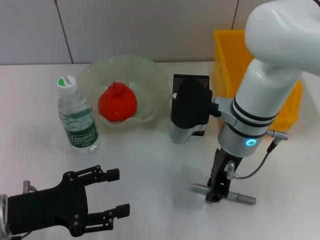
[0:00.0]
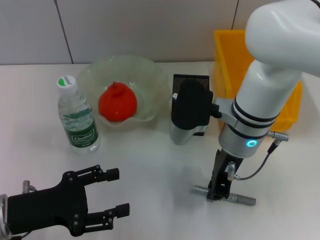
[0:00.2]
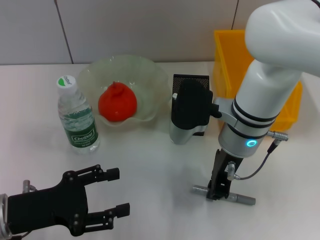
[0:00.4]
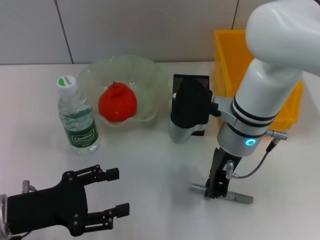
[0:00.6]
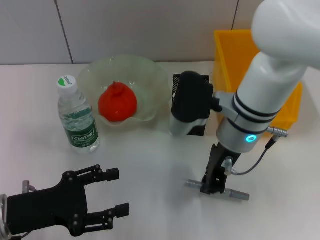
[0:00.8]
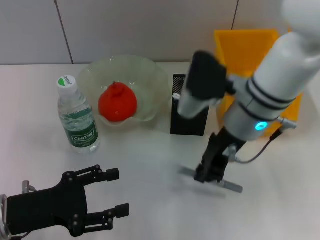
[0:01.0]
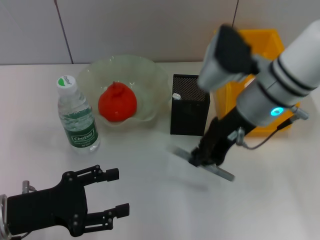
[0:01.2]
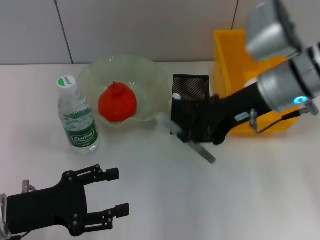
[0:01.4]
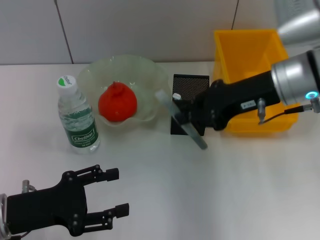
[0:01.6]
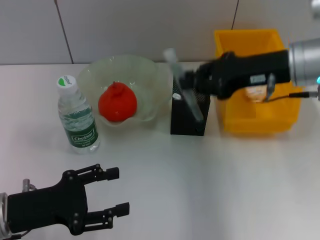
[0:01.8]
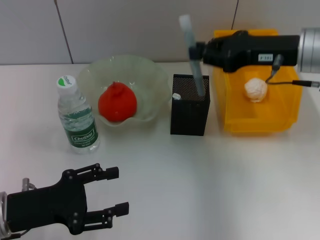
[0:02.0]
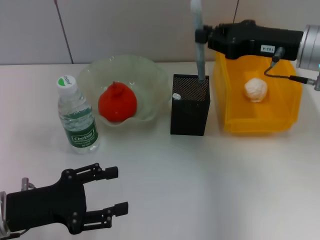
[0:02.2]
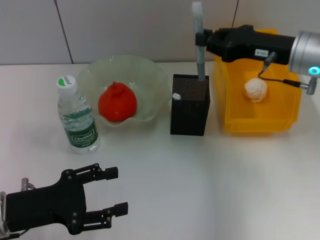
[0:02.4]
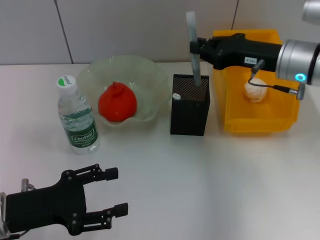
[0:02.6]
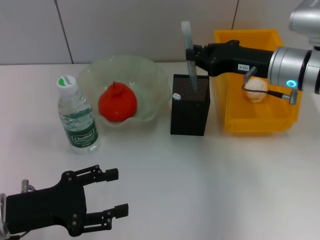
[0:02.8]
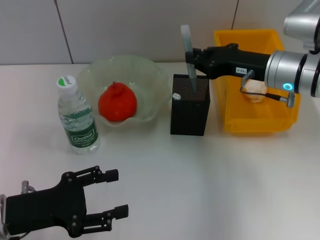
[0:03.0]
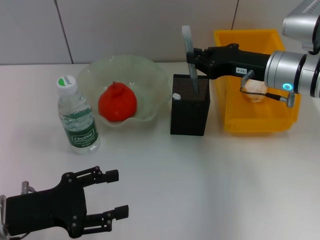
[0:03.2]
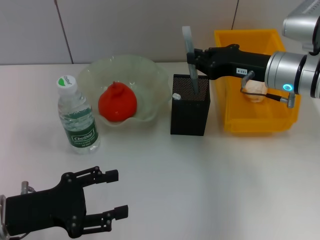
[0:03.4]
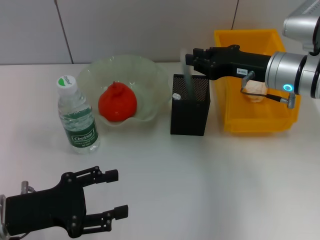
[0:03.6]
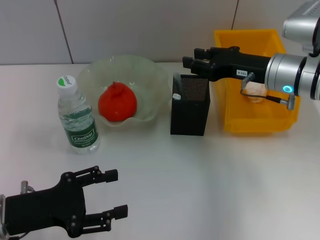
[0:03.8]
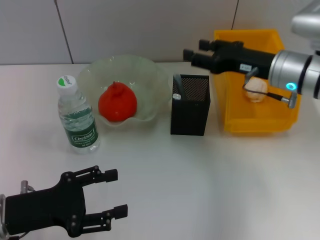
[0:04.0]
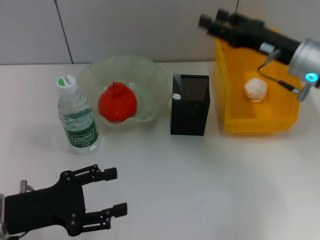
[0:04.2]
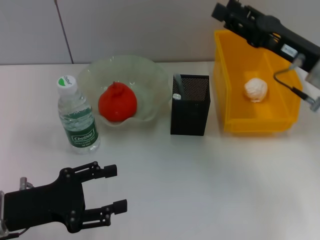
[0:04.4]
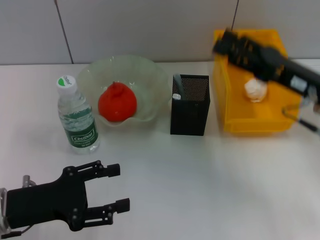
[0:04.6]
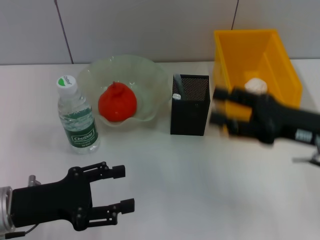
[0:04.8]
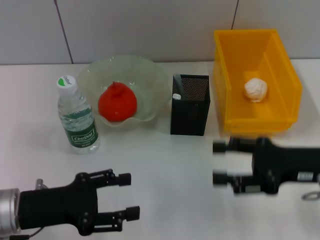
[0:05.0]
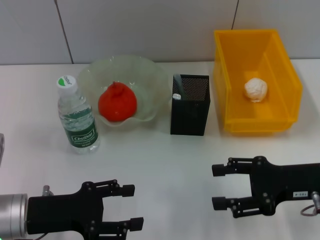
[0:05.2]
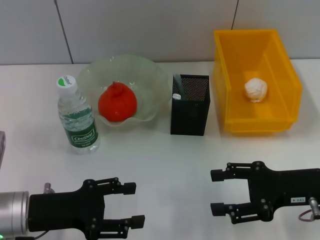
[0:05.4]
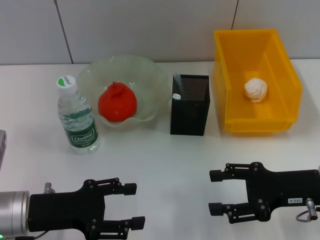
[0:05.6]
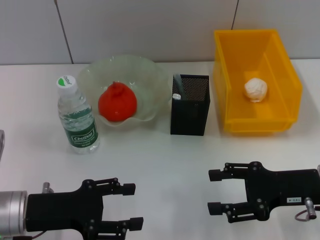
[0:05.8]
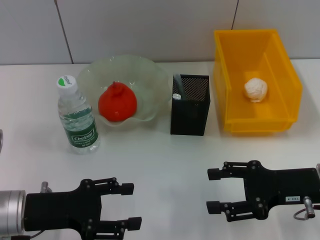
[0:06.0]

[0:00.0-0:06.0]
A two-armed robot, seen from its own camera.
Step, 0:00.6 to 0:03.8: Place the gray glue into the pen holder with the right hand.
0:00.0 to 0:01.6: The right gripper is displaced to the right and upward by roughly 10 cm, and closes.
0:01.6 to 0:03.0: The right gripper travels downward by some 5 cm.
0:03.0 to 0:04.4: The right gripper ends up roughly 5 cm from where it was, and opens.
0:04.4 to 0:06.0: The right gripper heads backward and downward, covering approximately 10 cm.

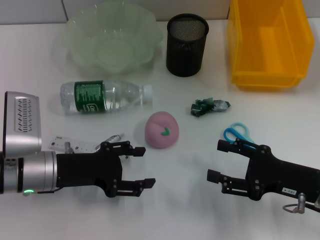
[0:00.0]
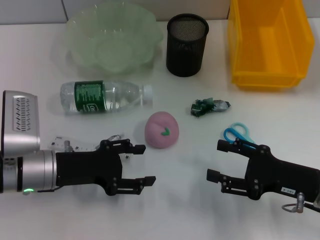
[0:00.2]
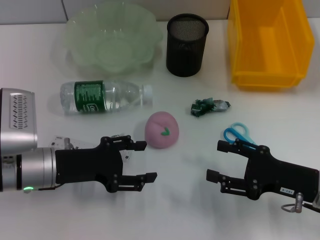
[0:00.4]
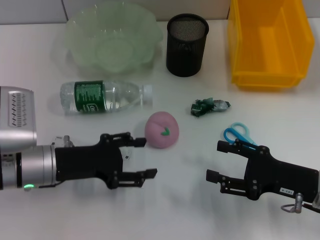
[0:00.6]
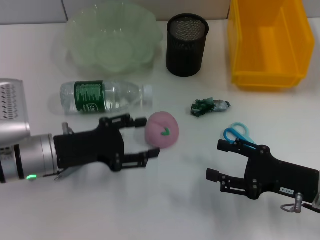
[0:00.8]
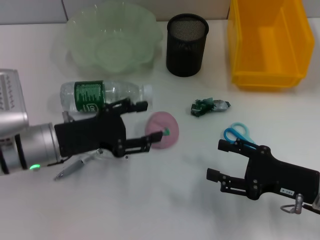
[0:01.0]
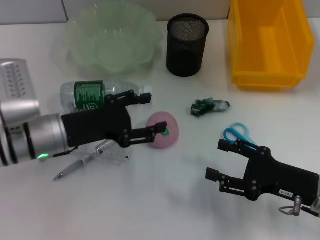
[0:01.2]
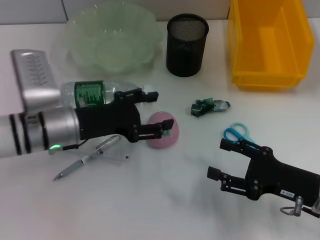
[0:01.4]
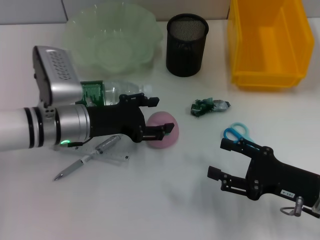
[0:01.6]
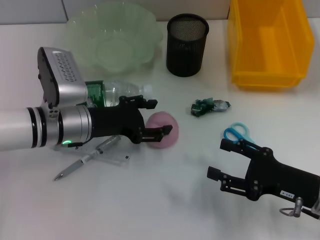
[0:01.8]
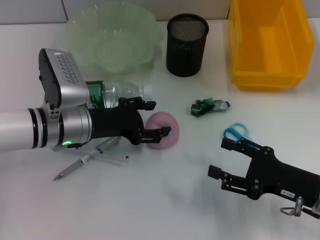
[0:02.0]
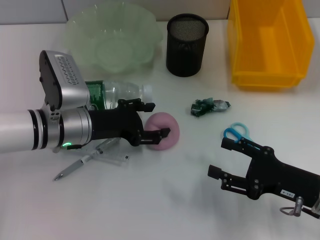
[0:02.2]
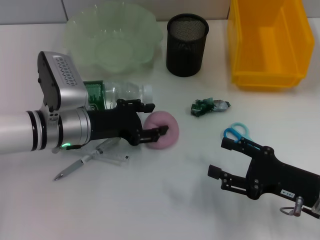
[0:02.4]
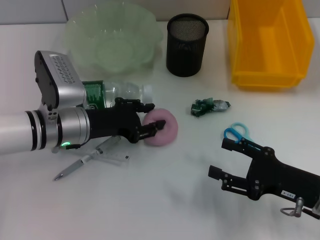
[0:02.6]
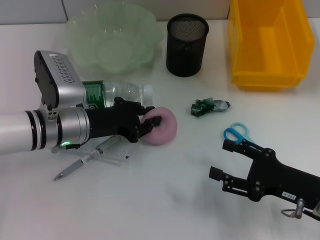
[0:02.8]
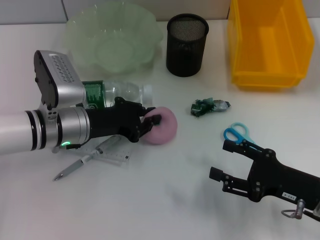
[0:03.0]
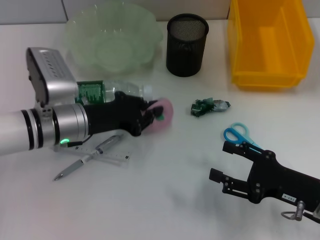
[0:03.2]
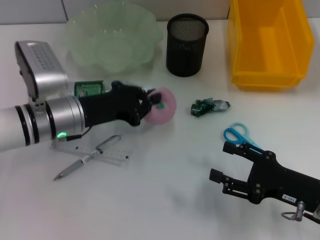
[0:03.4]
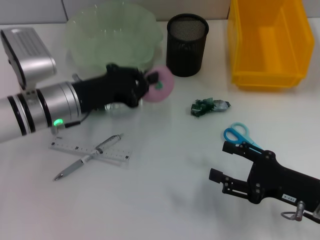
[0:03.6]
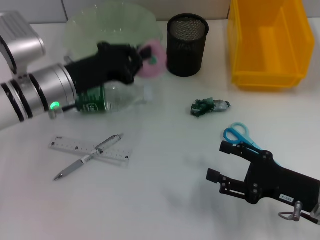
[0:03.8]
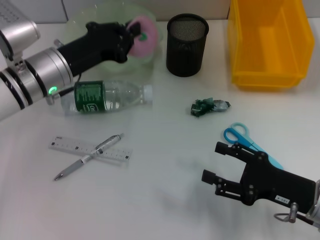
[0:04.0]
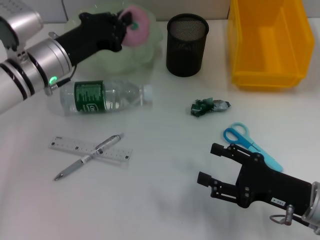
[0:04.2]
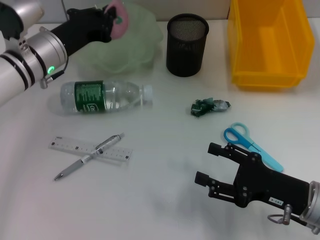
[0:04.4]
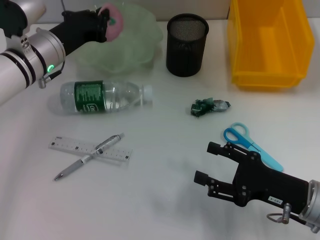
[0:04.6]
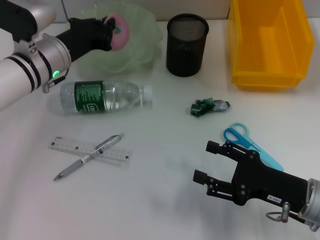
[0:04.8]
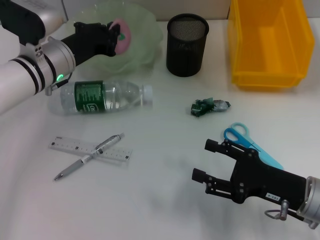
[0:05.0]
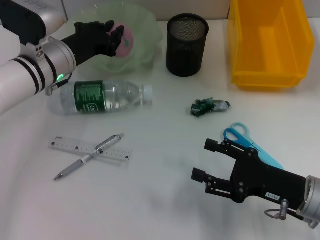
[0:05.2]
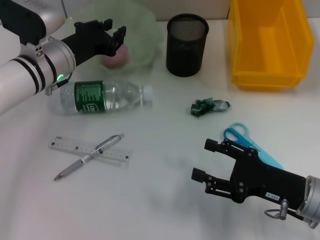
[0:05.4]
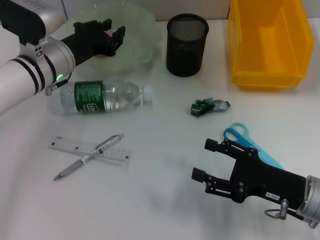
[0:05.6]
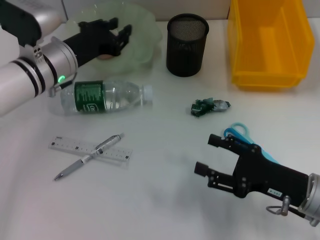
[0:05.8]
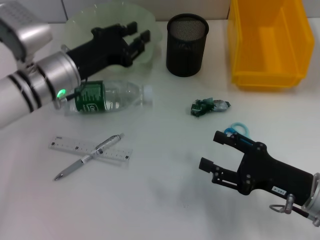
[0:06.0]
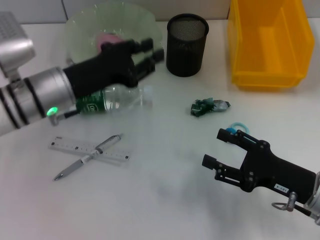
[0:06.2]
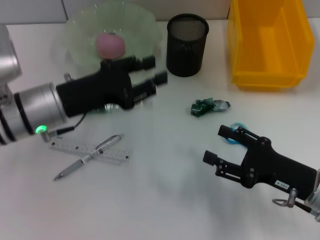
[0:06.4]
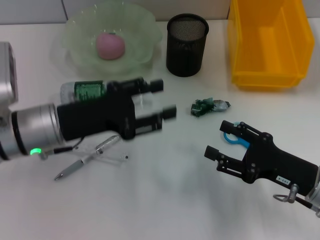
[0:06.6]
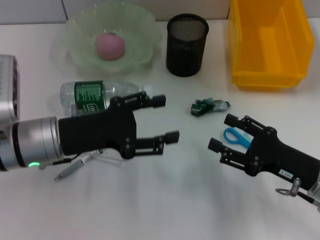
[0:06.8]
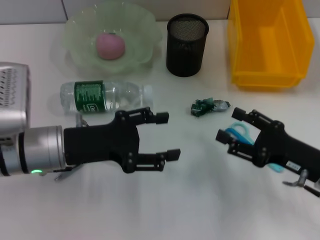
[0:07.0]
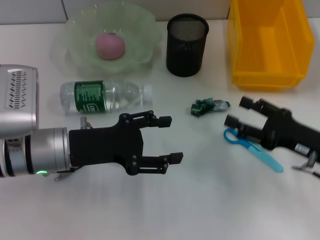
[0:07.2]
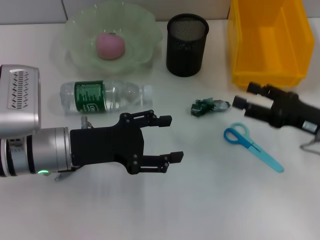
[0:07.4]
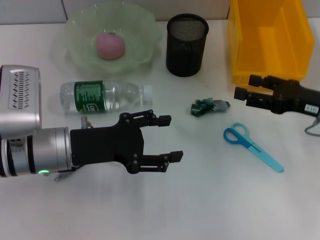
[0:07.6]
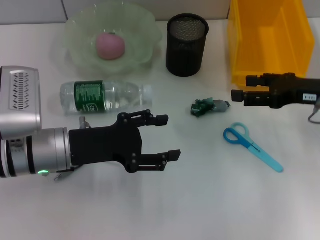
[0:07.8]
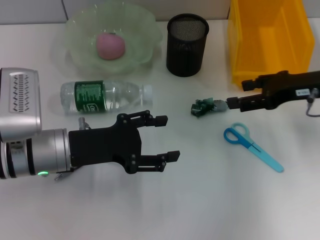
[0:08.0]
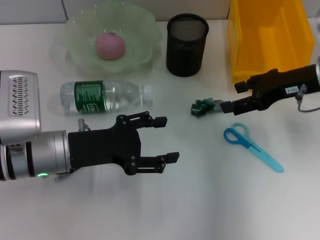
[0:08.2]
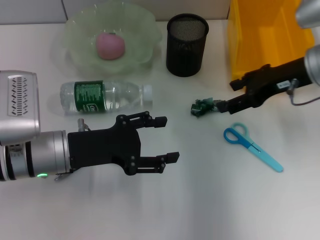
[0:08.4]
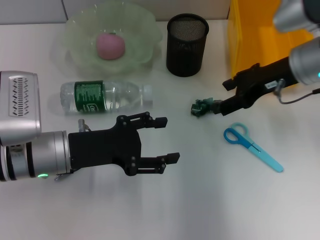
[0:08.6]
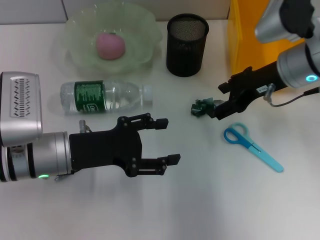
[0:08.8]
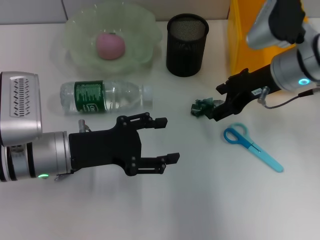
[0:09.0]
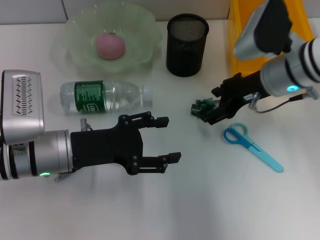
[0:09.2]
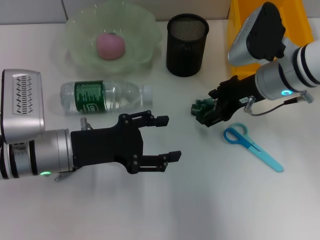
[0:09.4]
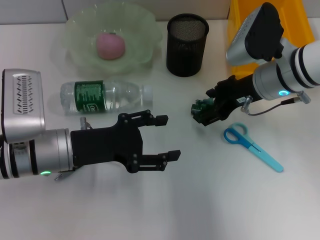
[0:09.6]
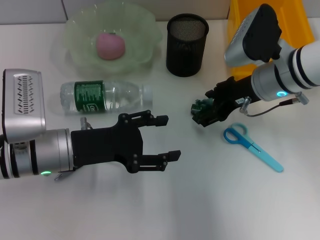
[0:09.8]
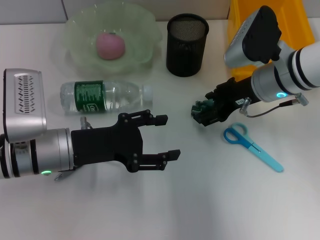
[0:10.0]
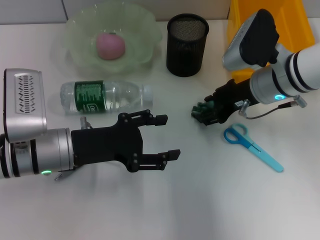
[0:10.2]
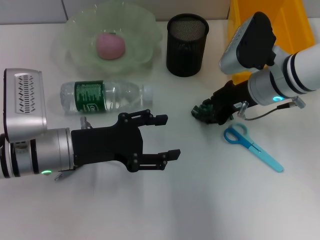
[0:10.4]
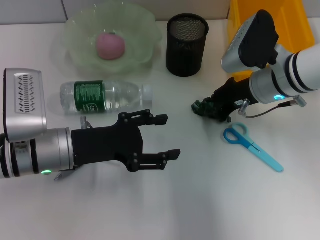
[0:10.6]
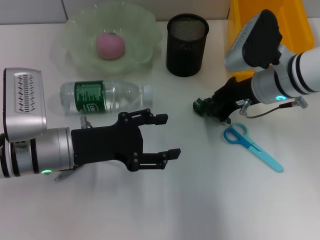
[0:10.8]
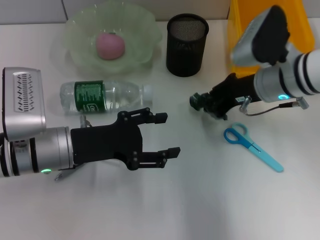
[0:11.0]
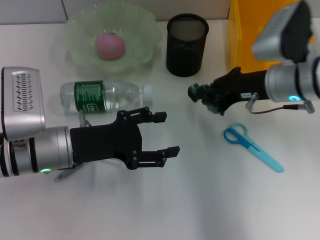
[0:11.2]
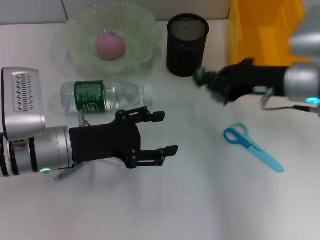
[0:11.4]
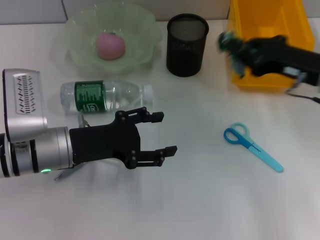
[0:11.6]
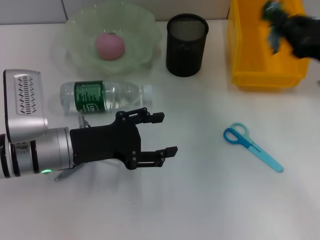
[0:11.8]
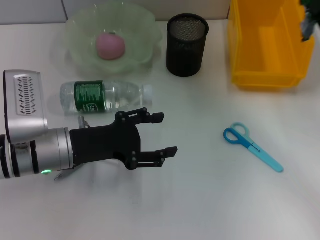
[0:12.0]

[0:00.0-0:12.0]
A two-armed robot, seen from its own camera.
Step, 0:00.0 to 0:03.0: Grab the peach with the left hand.
Step, 0:03.2 to 0:05.6: Place the peach into the fruit bowl with the left hand.
Step, 0:05.8 to 0:10.4: Grab the plastic with the right hand.
0:00.0 to 0:01.6: The left gripper goes roughly 5 cm forward.
0:01.6 to 0:03.0: The left gripper closes its fingers.
0:03.0 to 0:04.4: The left gripper moves forward and upward, about 10 cm.
0:04.4 to 0:06.0: The left gripper opens up.
0:06.0 to 0:07.6: The left gripper travels backward by some 10 cm, and opens its fingers, while the right gripper travels forward, upward and to the right by roughly 15 cm.
0:07.6 to 0:09.0: The right gripper moves to the left, forward and upward, roughly 15 cm.
0:09.0 to 0:10.4: The right gripper closes.
0:10.4 to 0:12.0: The right gripper goes roughly 15 cm to the right and backward, and closes its fingers.

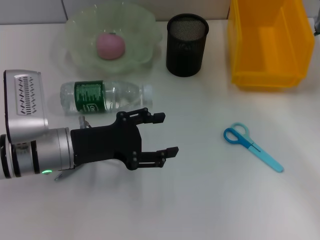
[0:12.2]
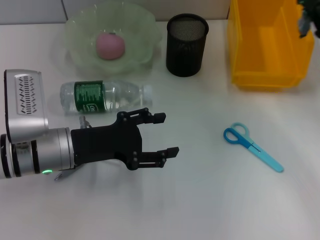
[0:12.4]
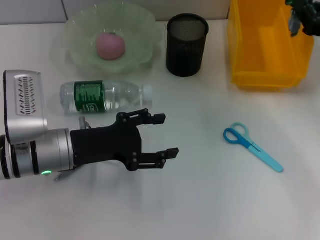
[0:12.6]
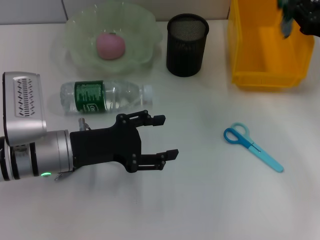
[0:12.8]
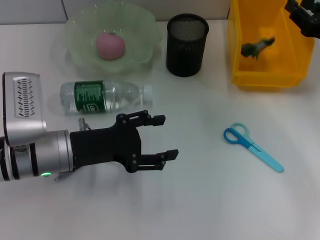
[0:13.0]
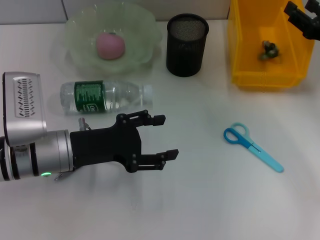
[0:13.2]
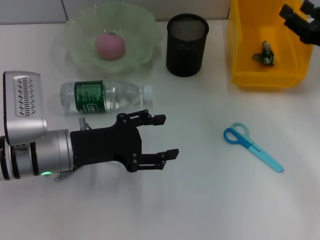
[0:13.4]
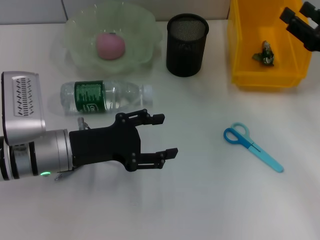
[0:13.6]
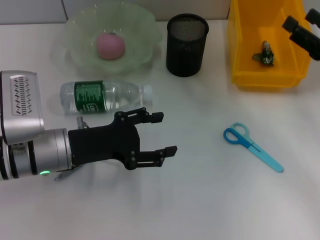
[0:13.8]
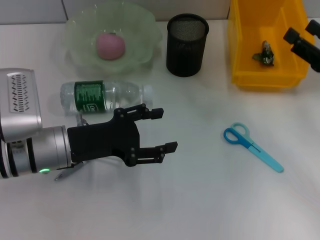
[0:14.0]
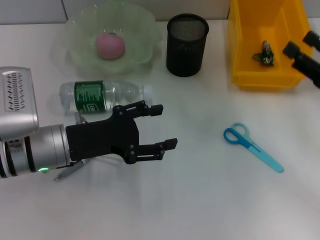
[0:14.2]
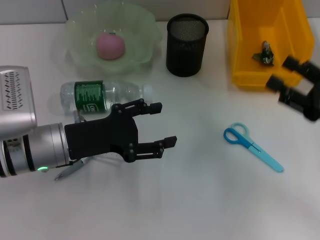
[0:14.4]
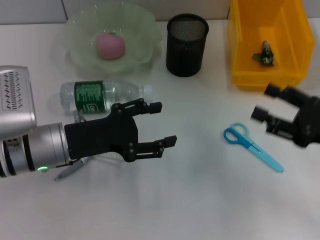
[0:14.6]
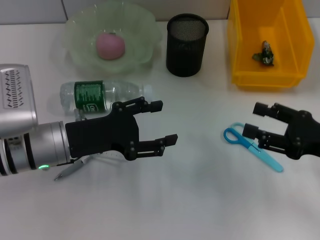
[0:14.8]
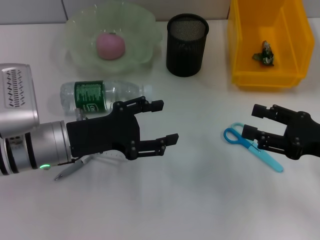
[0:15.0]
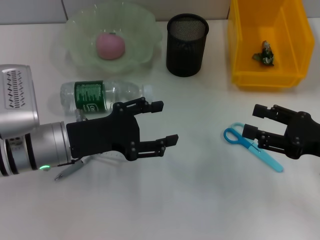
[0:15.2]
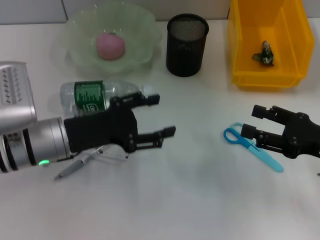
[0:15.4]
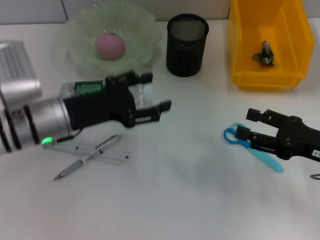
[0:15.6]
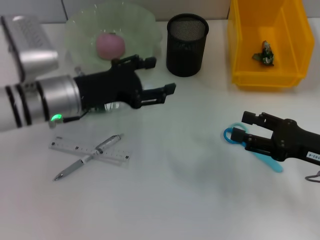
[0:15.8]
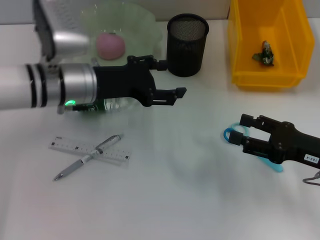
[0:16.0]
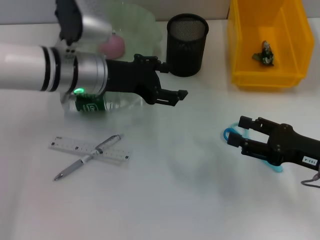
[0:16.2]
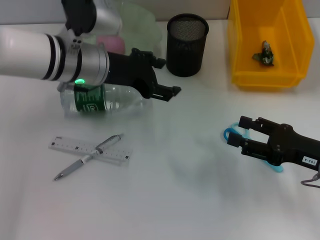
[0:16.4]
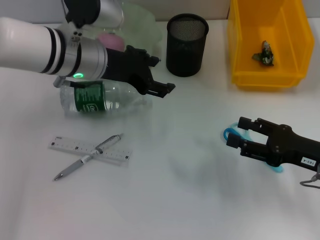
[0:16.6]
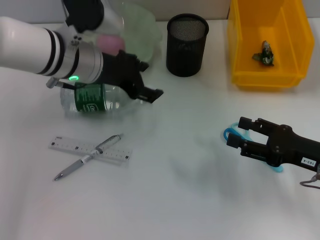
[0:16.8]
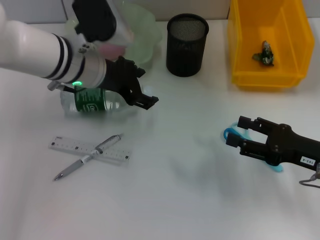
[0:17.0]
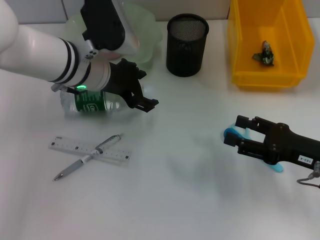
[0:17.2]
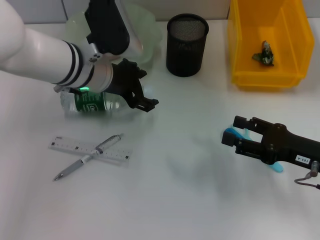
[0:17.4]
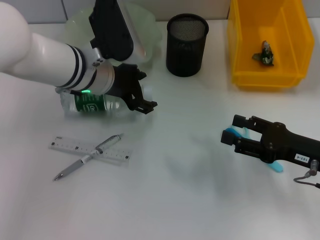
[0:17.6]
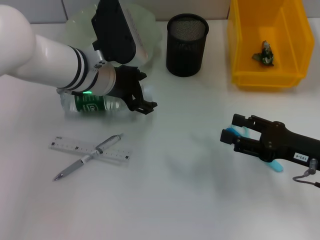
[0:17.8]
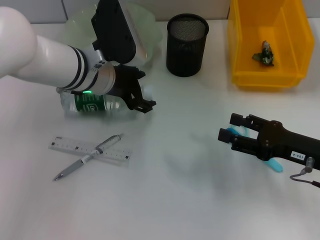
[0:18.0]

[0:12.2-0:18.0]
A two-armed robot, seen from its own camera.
0:12.2 to 0:13.6: The right gripper opens up.
0:13.6 to 0:15.0: The right gripper goes roughly 10 cm backward.
0:15.0 to 0:16.6: The left gripper is displaced forward, upward and to the right by approximately 15 cm.
0:16.6 to 0:18.0: The grippers make only small movements.
